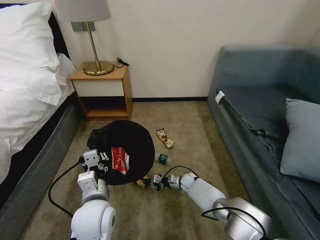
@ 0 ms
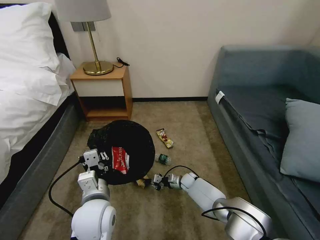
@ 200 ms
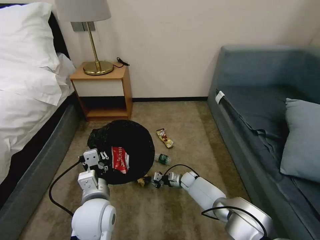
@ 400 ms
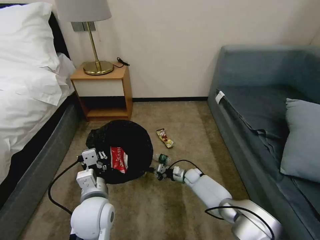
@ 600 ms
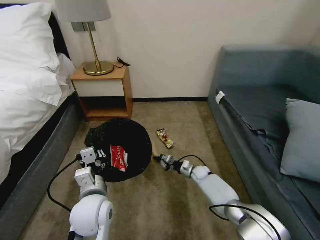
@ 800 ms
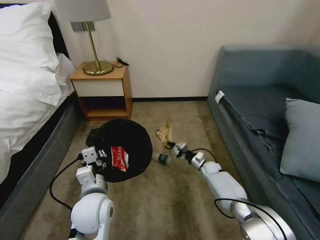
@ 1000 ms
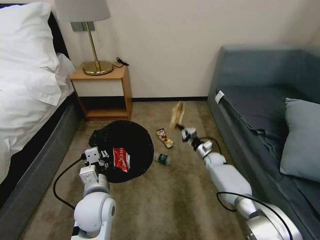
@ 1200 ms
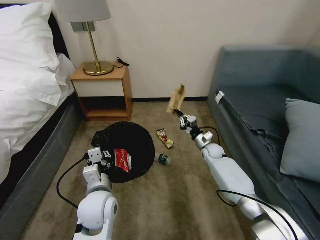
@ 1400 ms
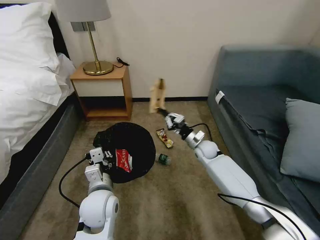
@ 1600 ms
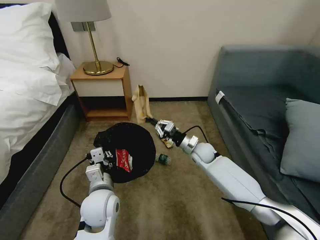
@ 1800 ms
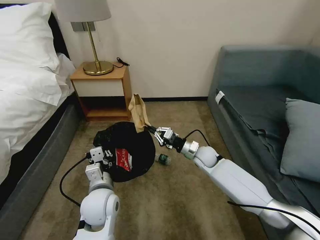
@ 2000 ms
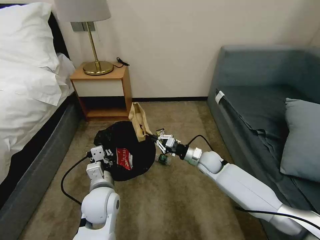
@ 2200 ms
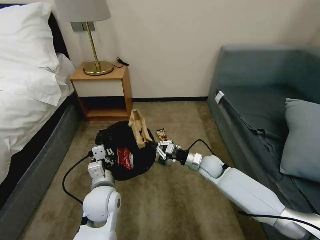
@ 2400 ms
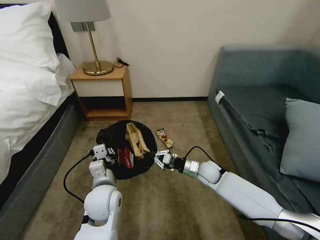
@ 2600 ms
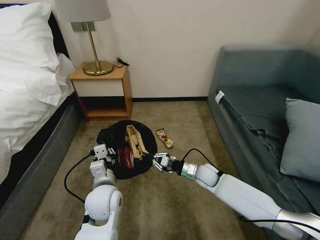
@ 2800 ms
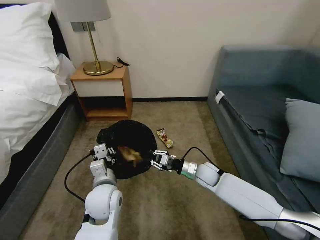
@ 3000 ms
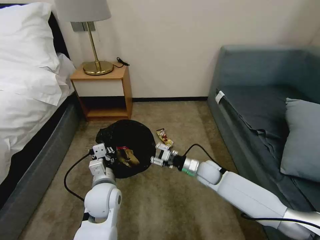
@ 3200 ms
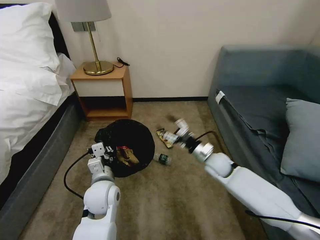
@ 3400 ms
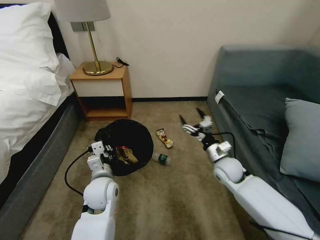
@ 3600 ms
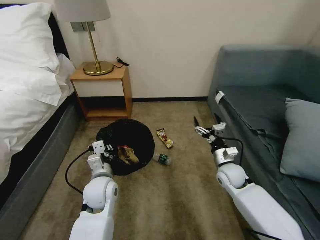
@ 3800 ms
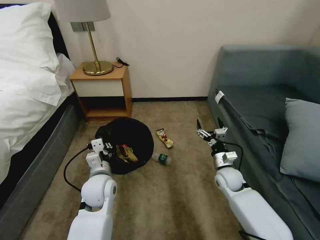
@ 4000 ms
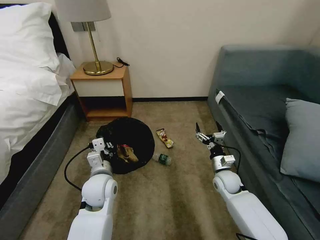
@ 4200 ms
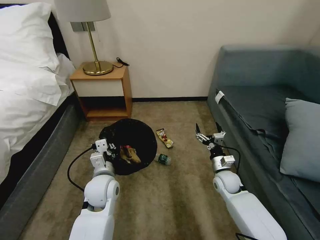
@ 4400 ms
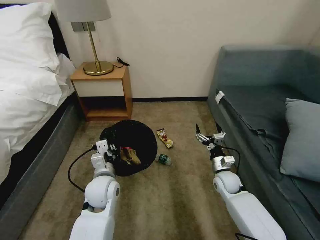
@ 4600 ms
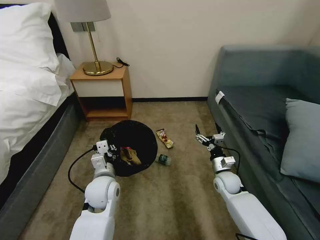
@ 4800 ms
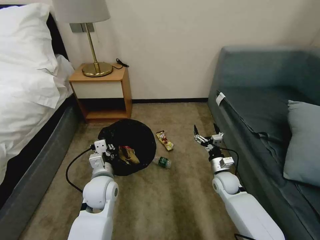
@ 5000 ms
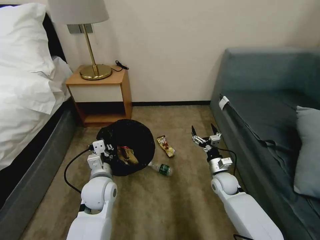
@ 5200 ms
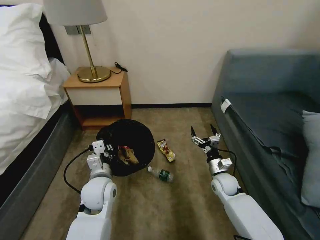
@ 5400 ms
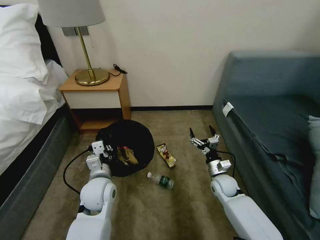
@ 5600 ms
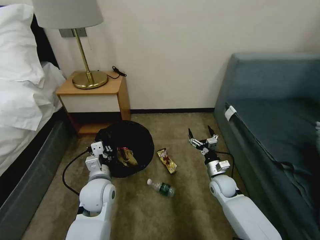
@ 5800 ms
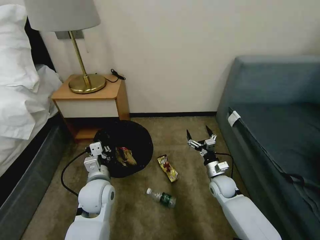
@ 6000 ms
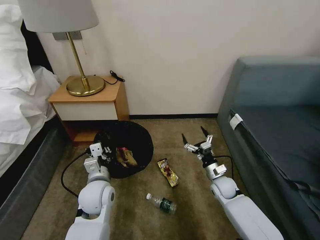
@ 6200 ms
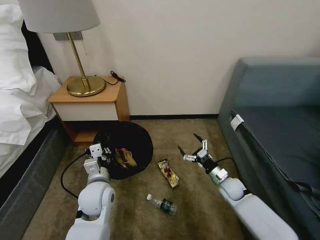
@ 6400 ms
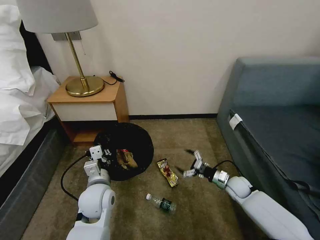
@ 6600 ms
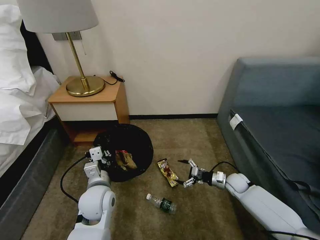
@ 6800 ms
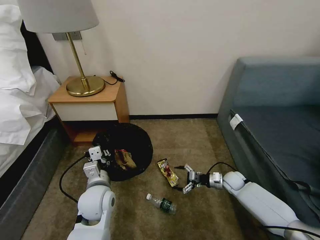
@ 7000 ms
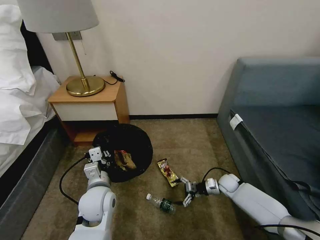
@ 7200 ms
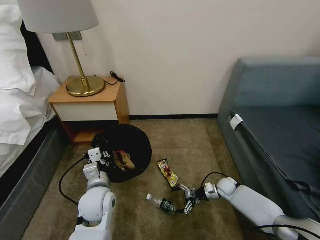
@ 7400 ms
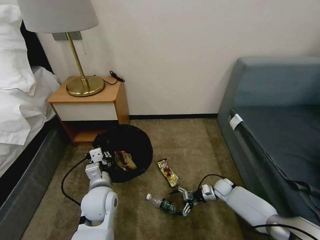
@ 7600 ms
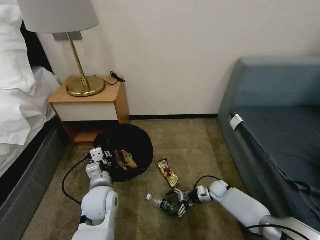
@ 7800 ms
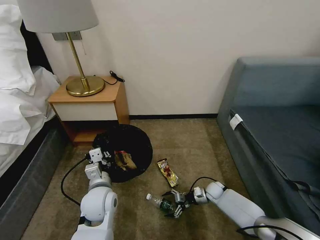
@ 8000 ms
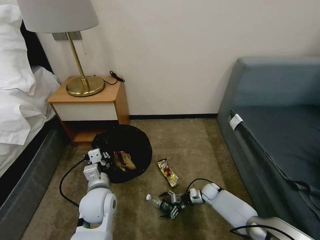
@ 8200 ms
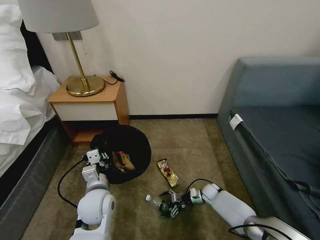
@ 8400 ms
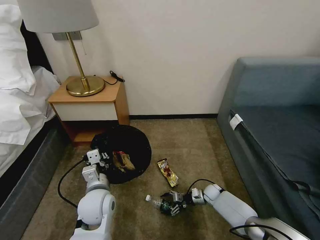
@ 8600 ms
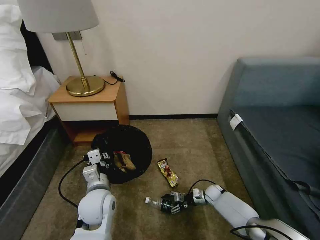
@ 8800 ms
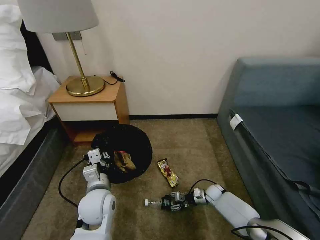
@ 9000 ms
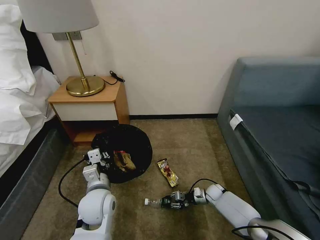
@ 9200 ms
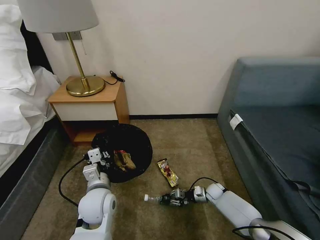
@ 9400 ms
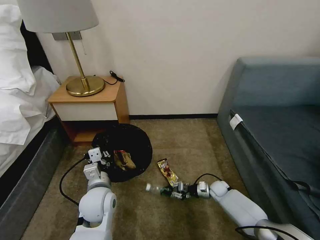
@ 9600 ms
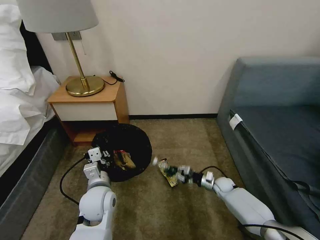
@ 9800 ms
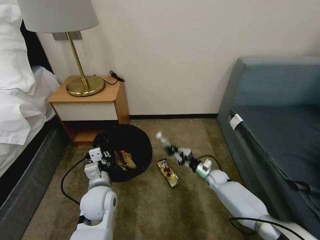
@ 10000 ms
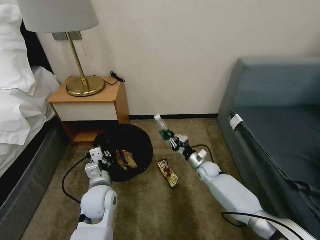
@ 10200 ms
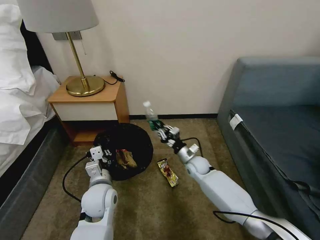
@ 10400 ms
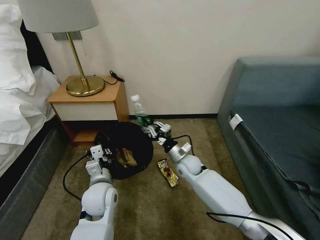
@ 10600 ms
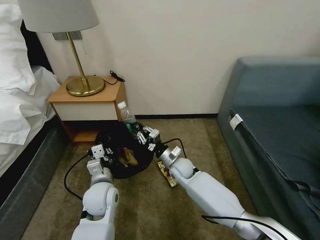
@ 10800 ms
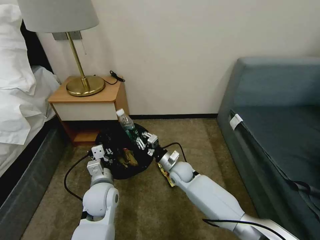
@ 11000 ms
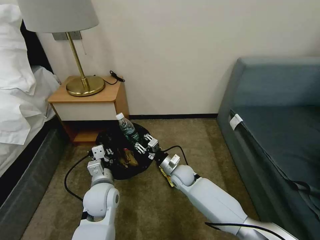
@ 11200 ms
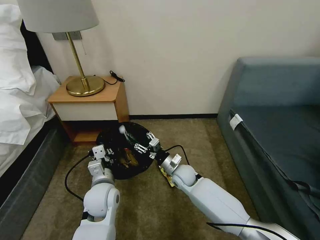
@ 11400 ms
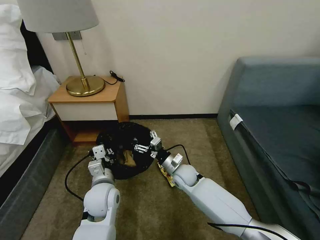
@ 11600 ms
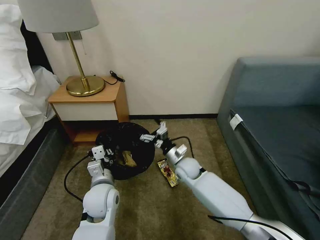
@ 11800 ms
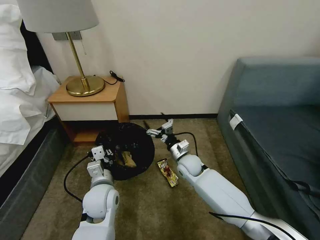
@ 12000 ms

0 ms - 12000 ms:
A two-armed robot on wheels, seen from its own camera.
Task of the whole recording: Pick up the trash bin, then pick up the garbage on the floor and place it into the trash bin.
0 ms - 1600 ms: The right gripper moves upward, roughly 20 cm.
1600 ms - 3000 ms: The right gripper heads backward, covering about 10 cm.
3000 ms - 4400 ms: The right gripper goes roughly 10 cm to the right, travels upward and back again, about 5 cm each way, and opens its fingers.
6000 ms - 7600 ms: The right gripper moves downward and to the right, about 10 cm.
7600 ms - 9000 ms: The right gripper moves some 5 cm, and closes its fingers.
9000 ms - 10400 ms: The right gripper is displaced upward and to the left by about 20 cm.
10400 ms - 12000 ms: The right gripper ends up roughly 5 cm from where it was, and opens its fingers.

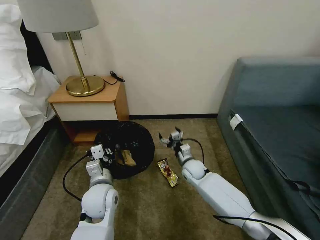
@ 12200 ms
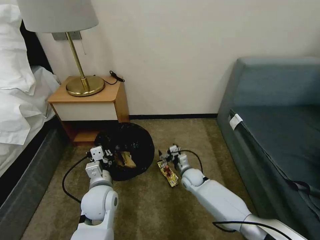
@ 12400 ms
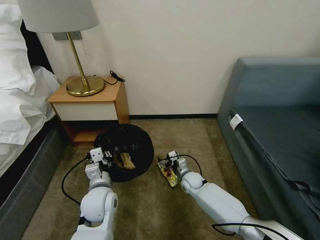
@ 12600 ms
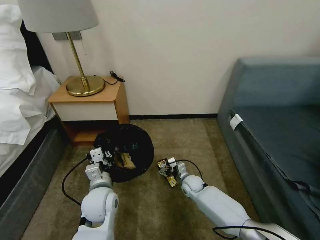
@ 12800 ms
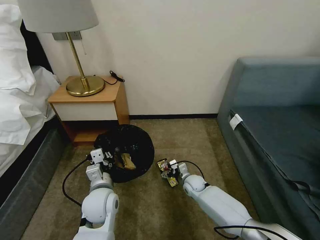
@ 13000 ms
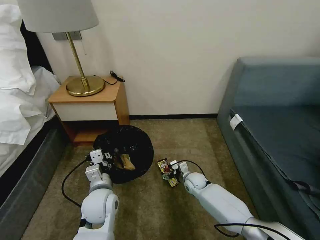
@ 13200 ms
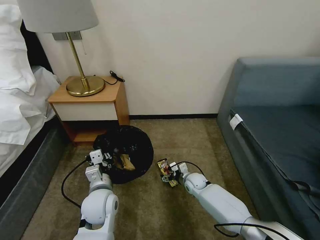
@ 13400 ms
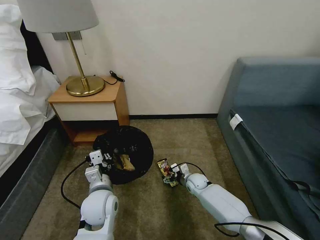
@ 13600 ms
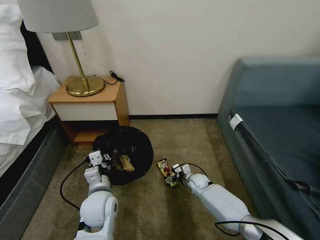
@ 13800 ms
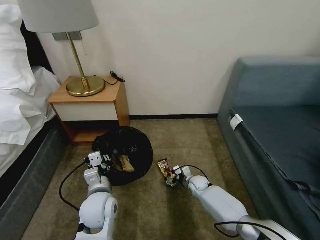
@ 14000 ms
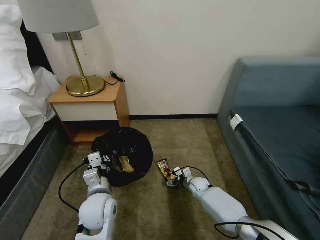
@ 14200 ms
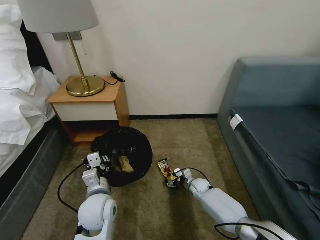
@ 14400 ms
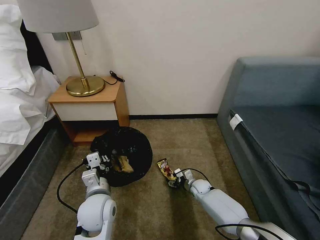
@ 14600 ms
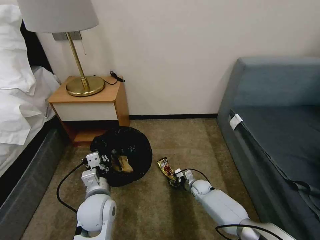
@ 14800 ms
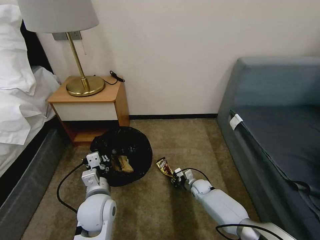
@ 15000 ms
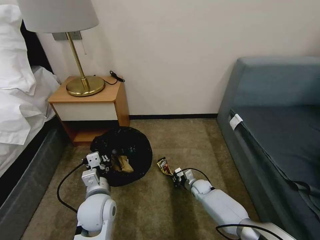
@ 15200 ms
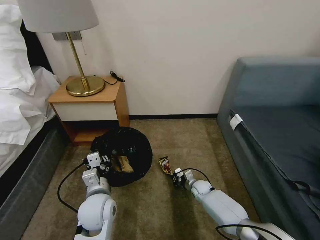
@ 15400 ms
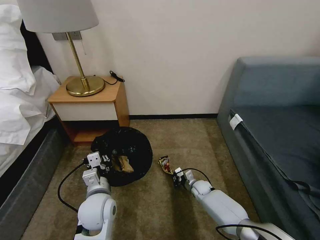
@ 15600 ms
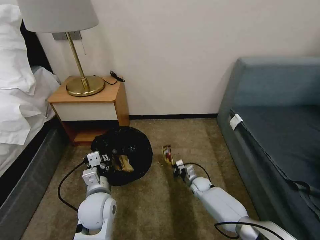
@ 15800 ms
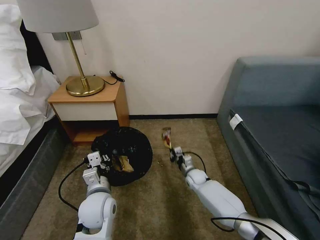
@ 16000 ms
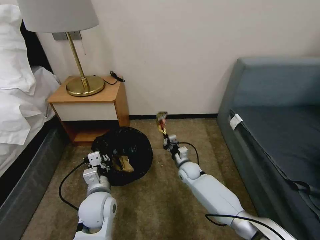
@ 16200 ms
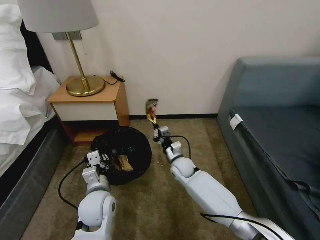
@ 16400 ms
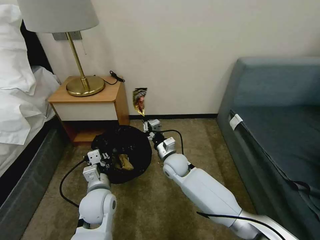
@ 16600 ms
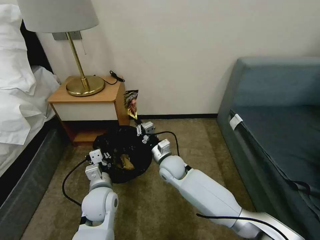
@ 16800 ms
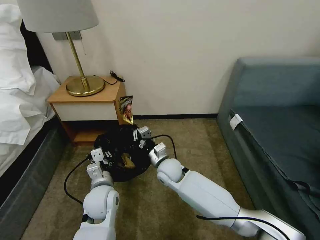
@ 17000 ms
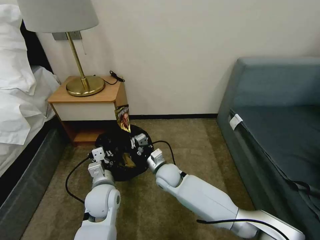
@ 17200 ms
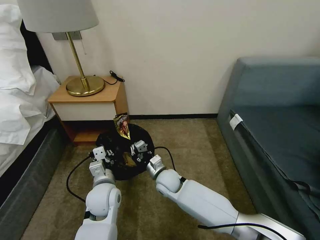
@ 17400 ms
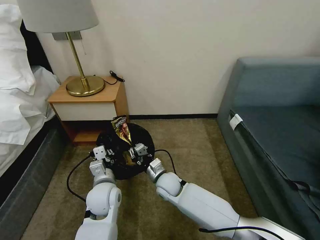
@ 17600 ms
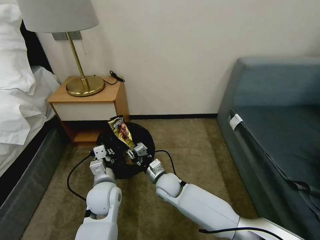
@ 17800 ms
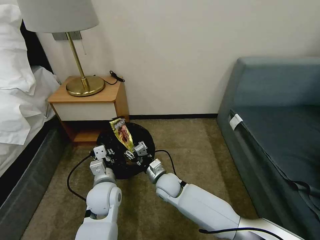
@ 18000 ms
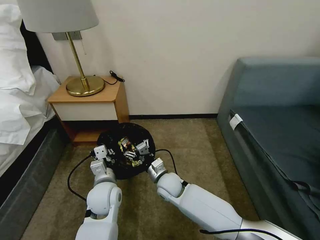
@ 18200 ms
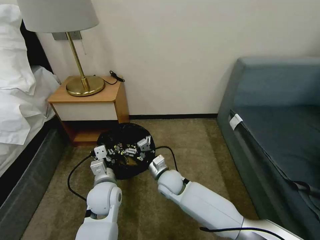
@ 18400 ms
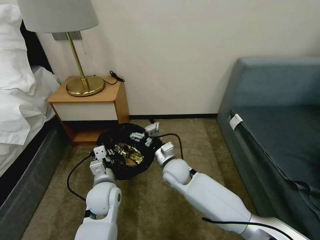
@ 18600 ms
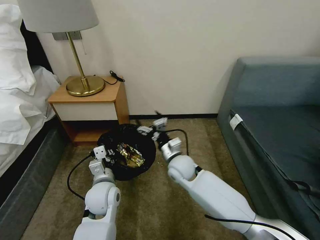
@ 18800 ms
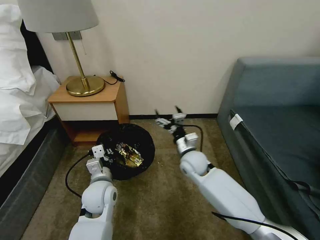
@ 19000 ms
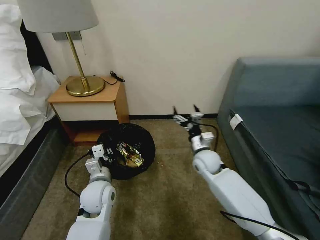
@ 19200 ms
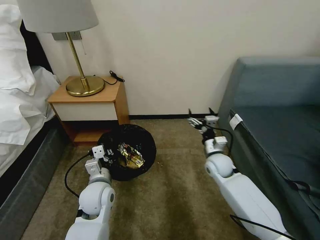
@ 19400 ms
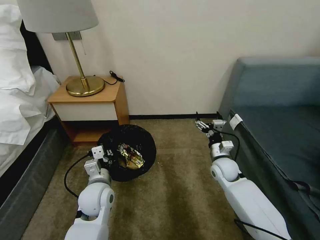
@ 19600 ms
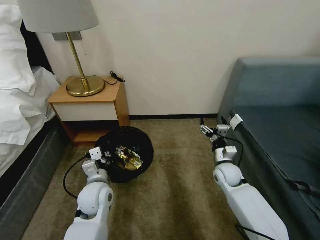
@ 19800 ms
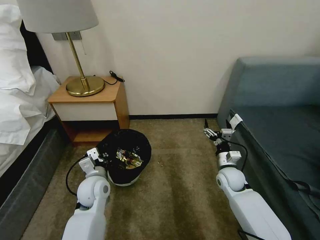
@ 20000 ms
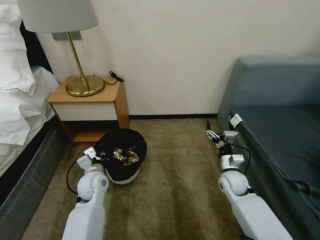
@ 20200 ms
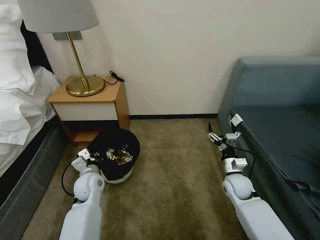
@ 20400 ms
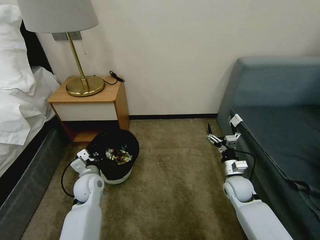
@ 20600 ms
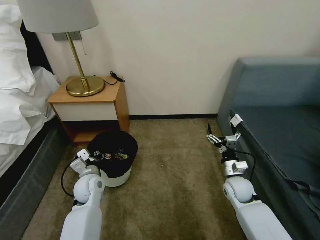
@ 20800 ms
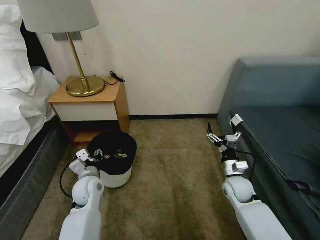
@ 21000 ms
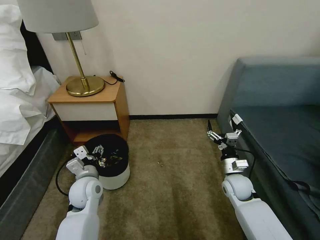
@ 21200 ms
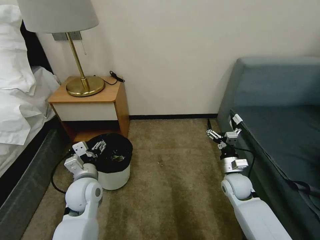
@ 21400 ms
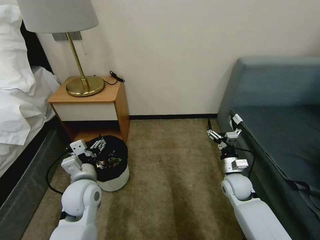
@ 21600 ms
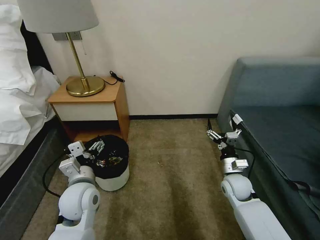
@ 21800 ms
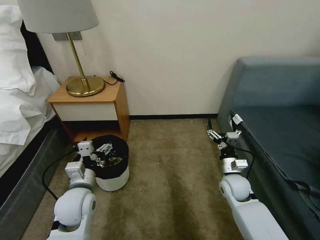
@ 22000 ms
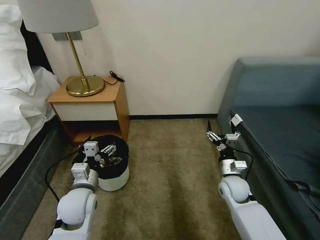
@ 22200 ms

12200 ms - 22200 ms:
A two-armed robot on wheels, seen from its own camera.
Task of the whole recording: Pick up the trash bin, then pick up the garbage on the floor and place it into the trash bin.
12200 ms - 13600 ms: The right gripper heads downward, covering roughly 10 cm.
13600 ms - 15000 ms: The right gripper shifts by roughly 5 cm, and closes.
15000 ms - 16400 ms: The right gripper goes some 20 cm upward and to the left.
16400 ms - 18000 ms: The right gripper travels backward and to the left by roughly 10 cm, and opens up.
18000 ms - 19400 ms: The right gripper travels to the right by approximately 20 cm, and opens.
19400 ms - 20800 ms: The right gripper moves backward and to the right, approximately 10 cm, while the left gripper moves to the left, roughly 5 cm.
20800 ms - 22200 ms: The left gripper travels backward and upward by about 10 cm, and opens its fingers.
